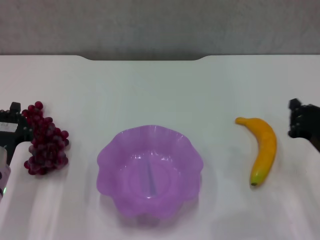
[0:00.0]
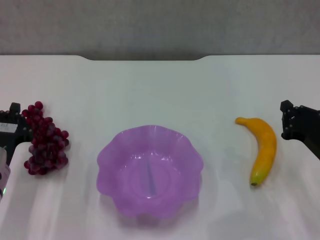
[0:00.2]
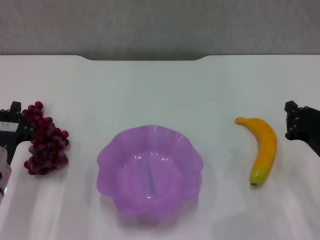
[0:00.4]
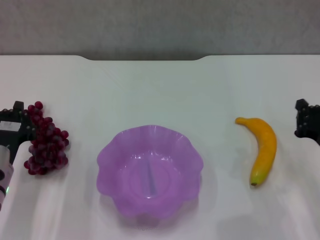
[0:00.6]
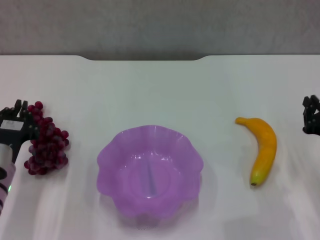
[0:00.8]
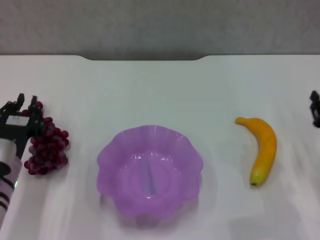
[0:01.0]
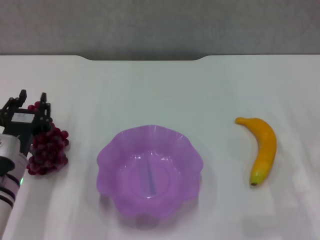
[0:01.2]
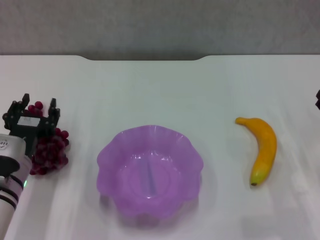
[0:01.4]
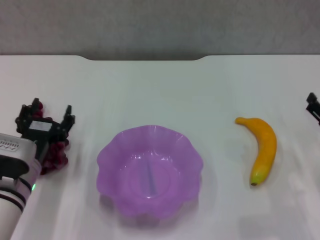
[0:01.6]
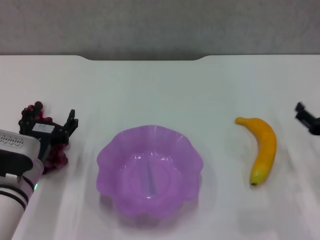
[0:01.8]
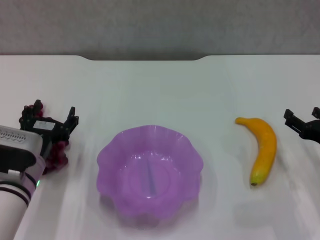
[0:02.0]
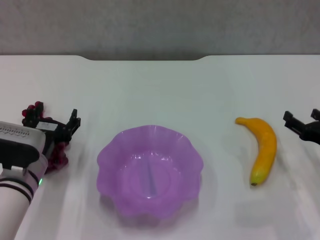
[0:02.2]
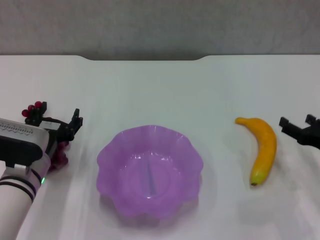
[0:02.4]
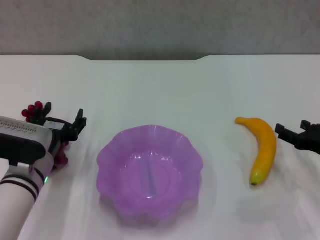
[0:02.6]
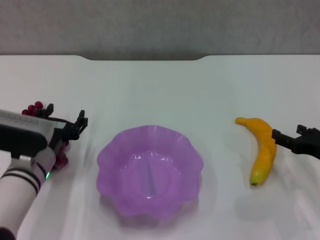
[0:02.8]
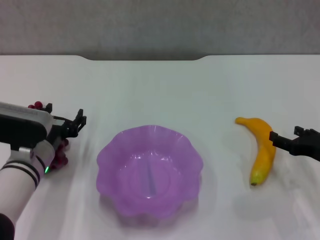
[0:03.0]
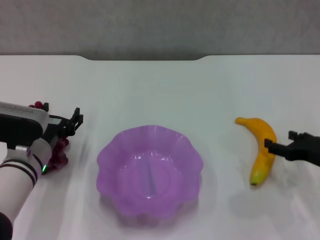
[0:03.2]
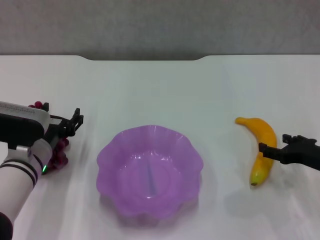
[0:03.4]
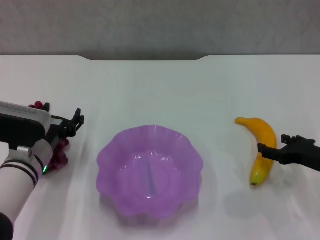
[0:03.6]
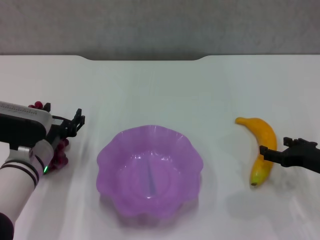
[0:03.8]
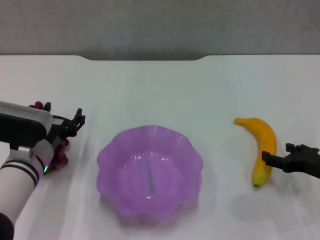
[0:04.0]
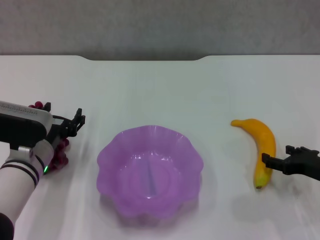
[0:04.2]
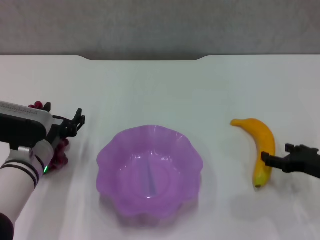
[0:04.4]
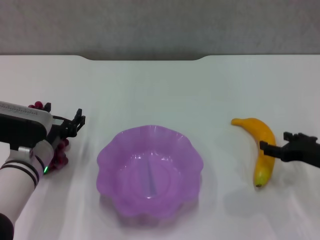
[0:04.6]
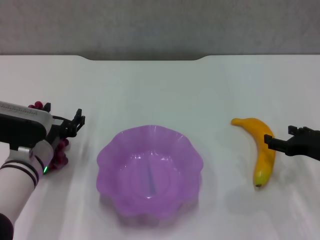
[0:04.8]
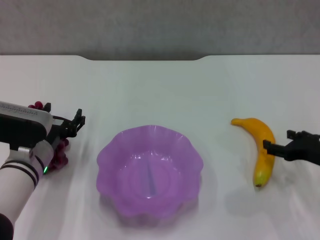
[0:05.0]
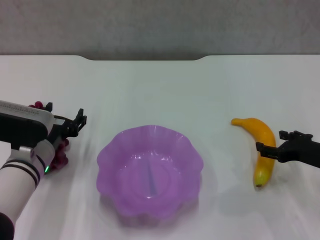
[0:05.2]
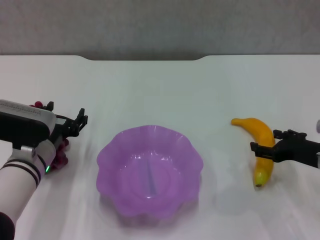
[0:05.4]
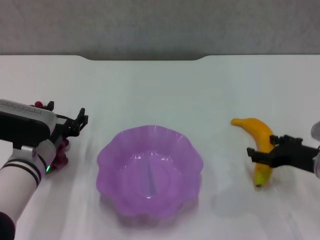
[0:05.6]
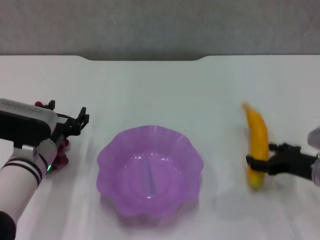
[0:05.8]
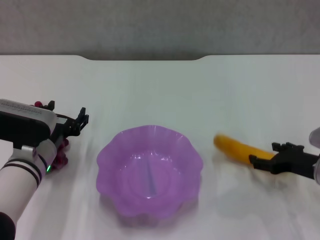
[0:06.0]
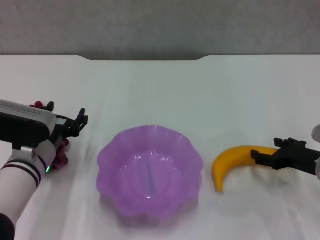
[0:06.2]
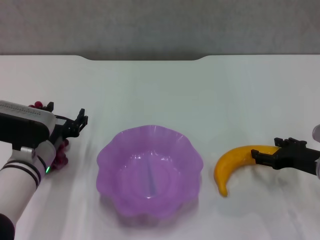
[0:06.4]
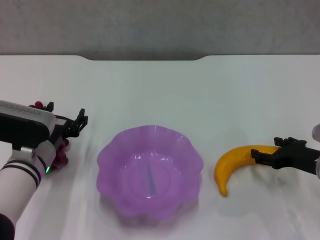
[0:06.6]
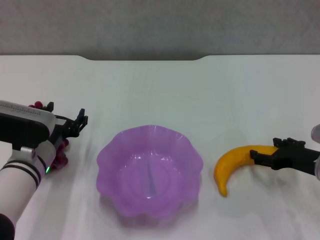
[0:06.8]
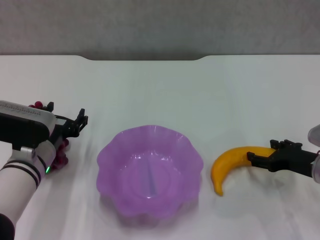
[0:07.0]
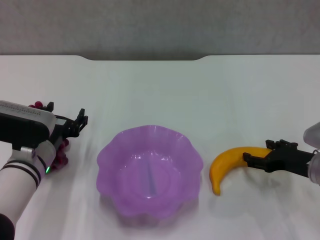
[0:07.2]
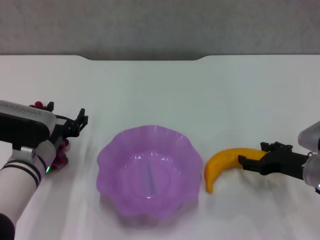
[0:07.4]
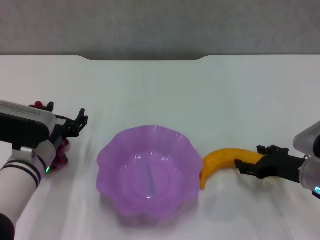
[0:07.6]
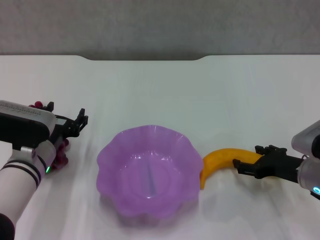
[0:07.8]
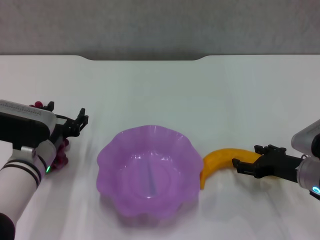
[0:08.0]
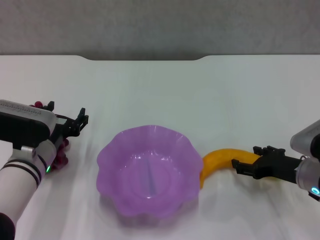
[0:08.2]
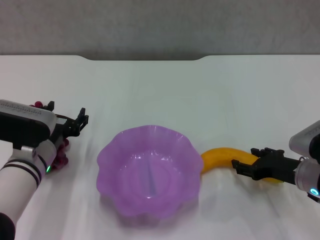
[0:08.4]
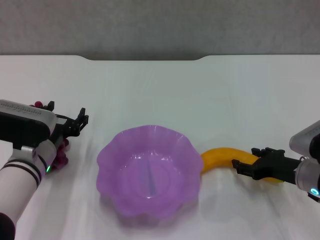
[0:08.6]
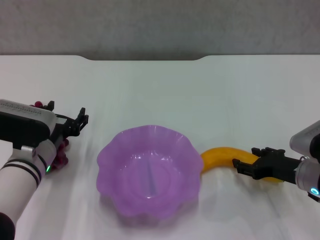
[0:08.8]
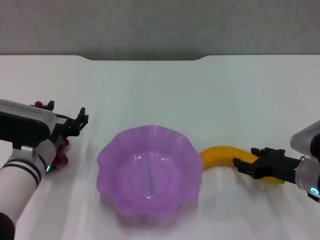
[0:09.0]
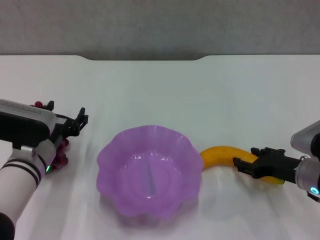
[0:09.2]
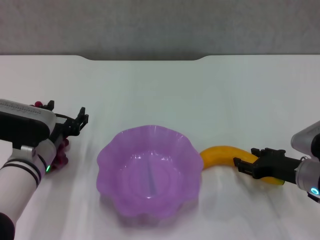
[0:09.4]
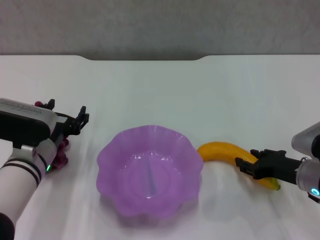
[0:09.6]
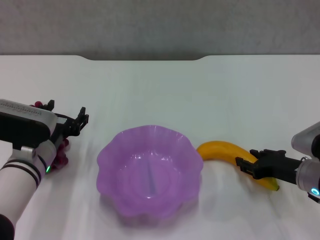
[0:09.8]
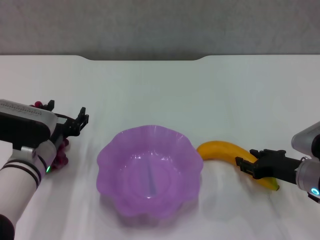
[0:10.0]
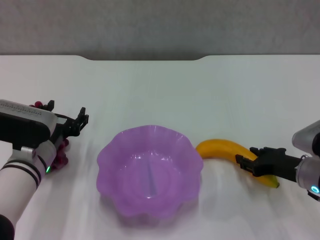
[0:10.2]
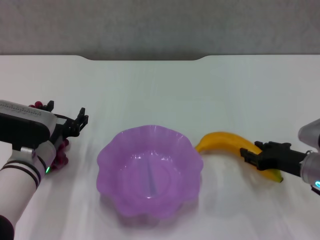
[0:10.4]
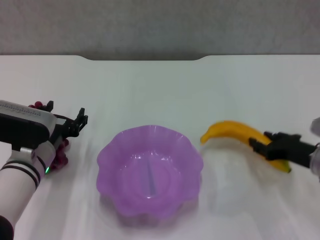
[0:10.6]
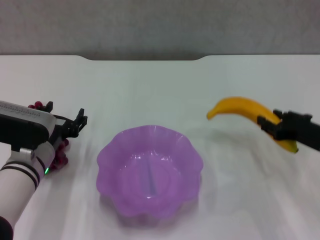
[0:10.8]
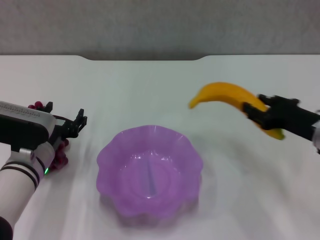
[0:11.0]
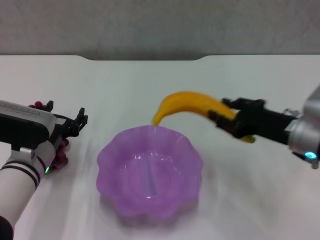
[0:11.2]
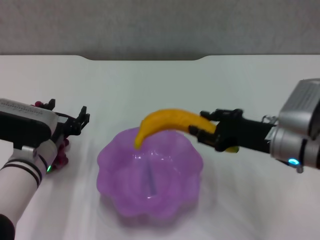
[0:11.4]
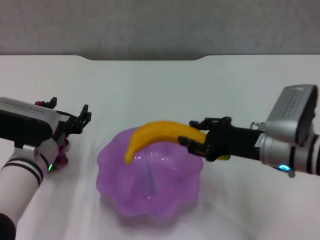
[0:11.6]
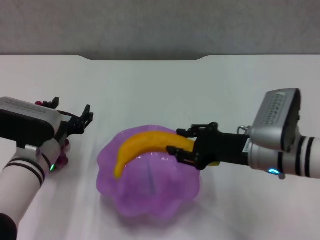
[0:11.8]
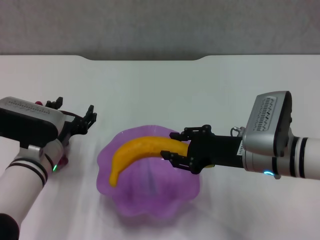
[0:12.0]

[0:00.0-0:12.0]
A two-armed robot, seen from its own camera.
Step, 0:00.0 to 0:09.8: Grasp the banana with right gripper.
0:00.0 to 0:01.6: The left gripper opens. Meanwhile the right gripper opens its fingers.
0:03.0 to 0:07.6: There are only small adjustments of the grippers.
0:07.6 to 0:09.0: The two grippers keep their place.
0:09.0 to 0:10.4: The two grippers keep their place.
0:10.4 to 0:12.0: The right gripper travels to the left and upward by about 10 cm.

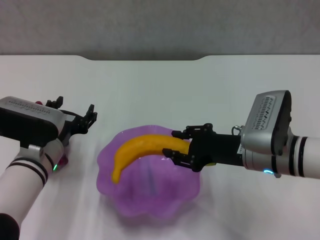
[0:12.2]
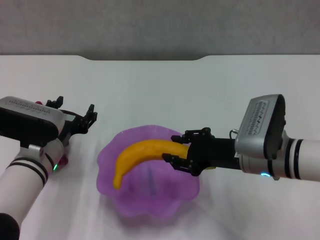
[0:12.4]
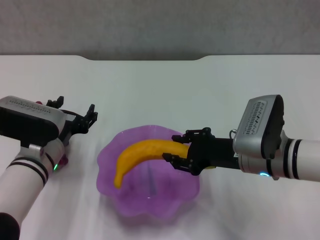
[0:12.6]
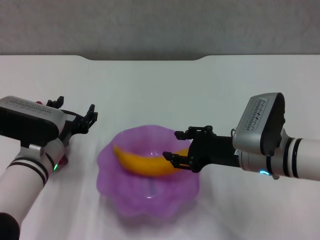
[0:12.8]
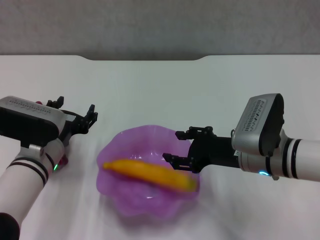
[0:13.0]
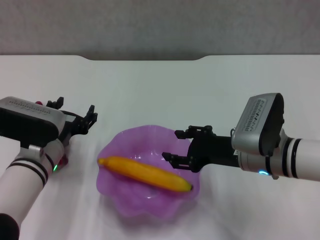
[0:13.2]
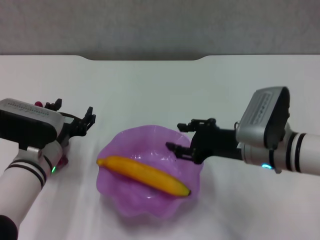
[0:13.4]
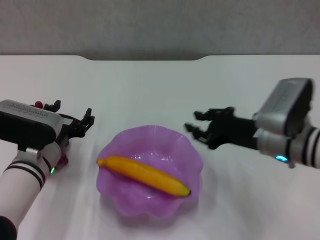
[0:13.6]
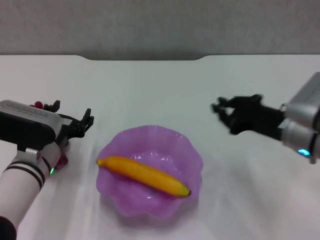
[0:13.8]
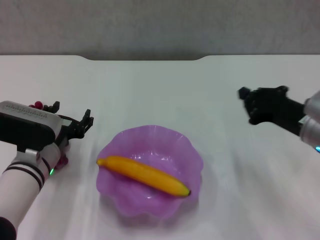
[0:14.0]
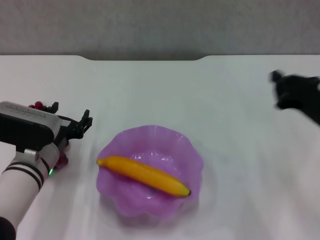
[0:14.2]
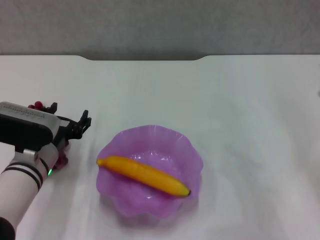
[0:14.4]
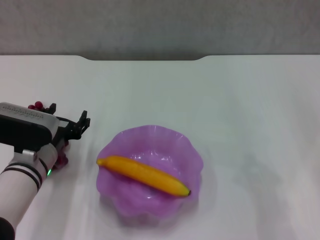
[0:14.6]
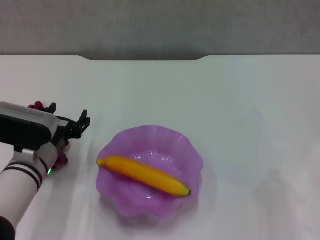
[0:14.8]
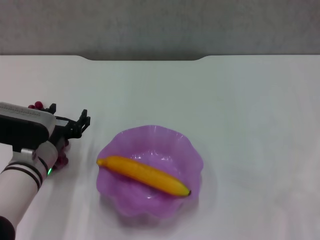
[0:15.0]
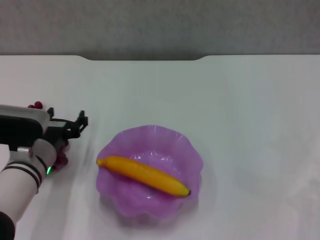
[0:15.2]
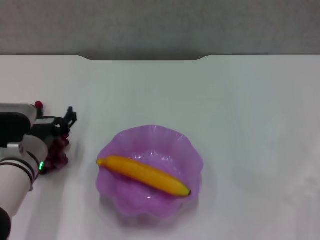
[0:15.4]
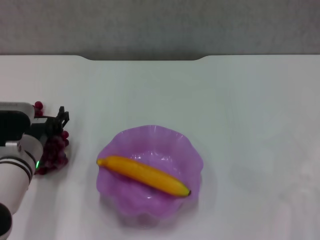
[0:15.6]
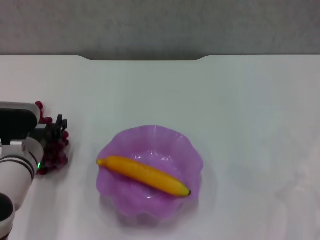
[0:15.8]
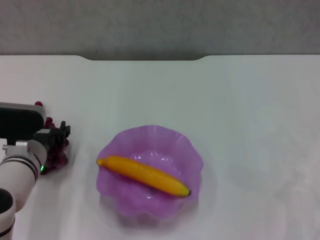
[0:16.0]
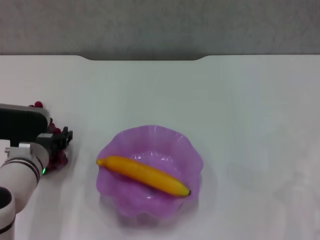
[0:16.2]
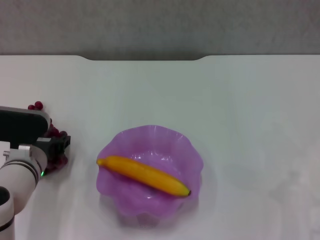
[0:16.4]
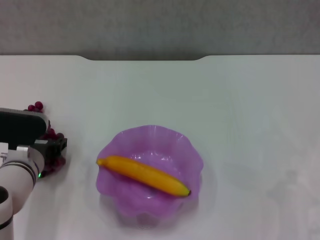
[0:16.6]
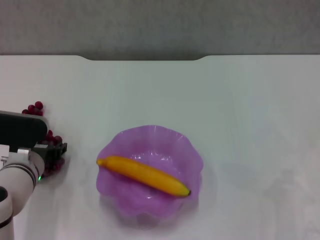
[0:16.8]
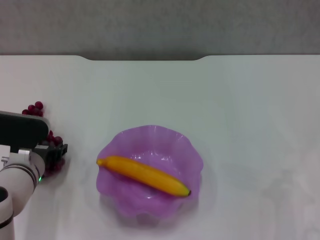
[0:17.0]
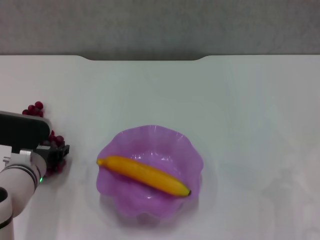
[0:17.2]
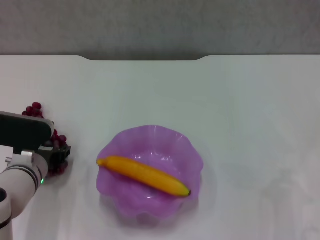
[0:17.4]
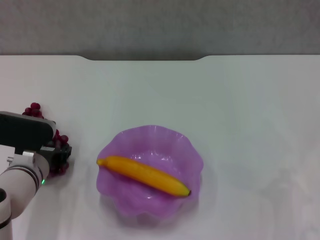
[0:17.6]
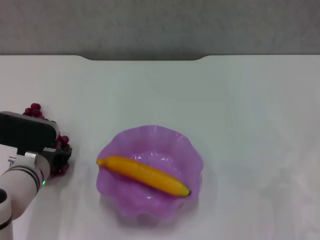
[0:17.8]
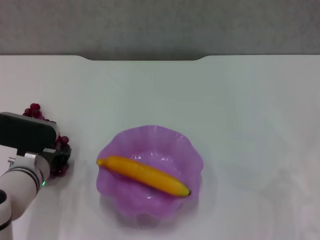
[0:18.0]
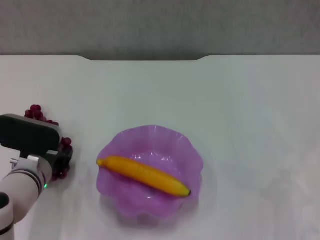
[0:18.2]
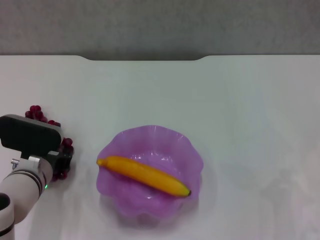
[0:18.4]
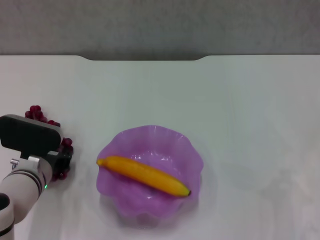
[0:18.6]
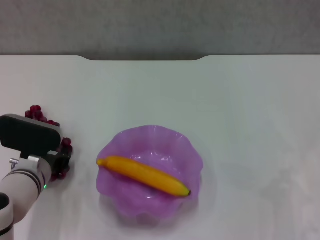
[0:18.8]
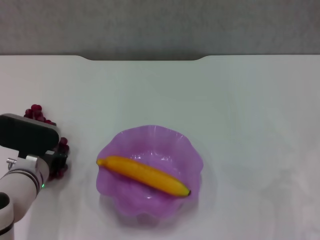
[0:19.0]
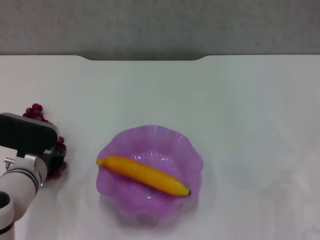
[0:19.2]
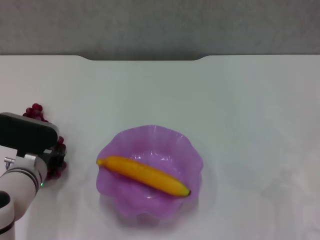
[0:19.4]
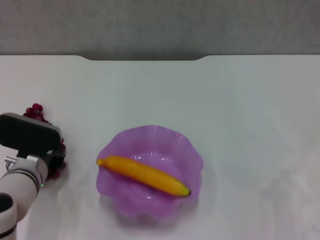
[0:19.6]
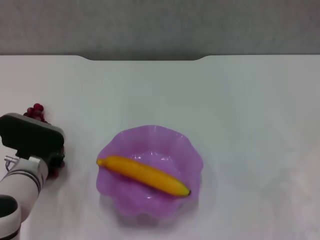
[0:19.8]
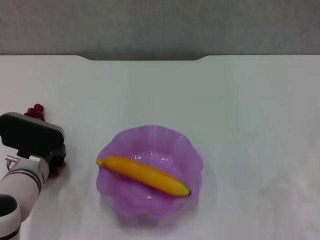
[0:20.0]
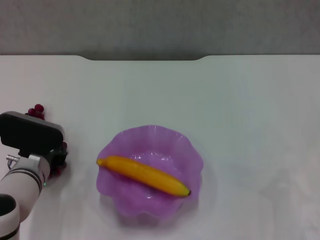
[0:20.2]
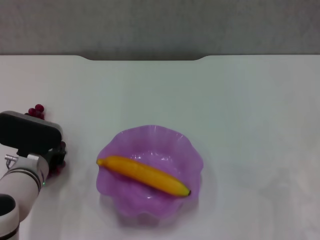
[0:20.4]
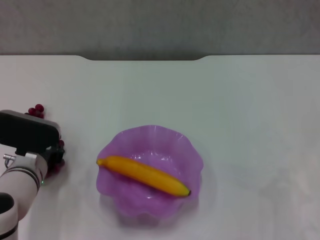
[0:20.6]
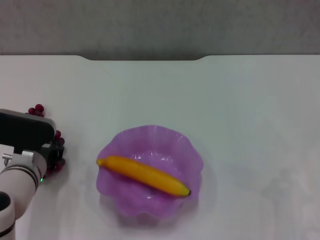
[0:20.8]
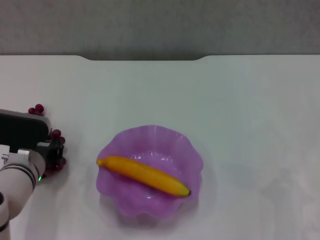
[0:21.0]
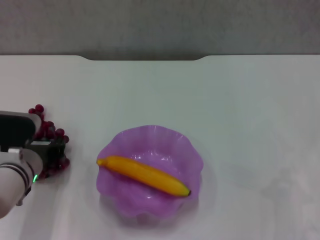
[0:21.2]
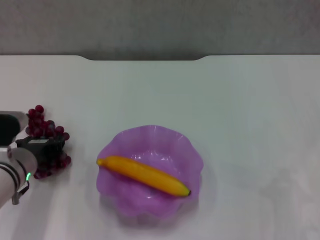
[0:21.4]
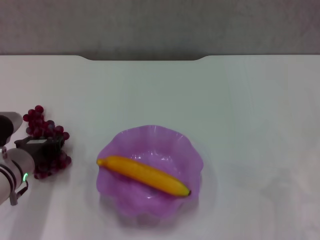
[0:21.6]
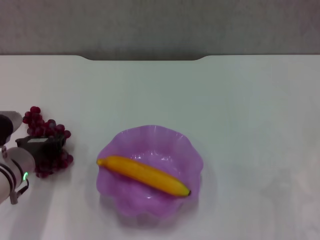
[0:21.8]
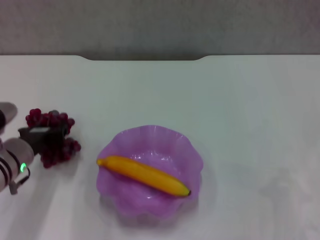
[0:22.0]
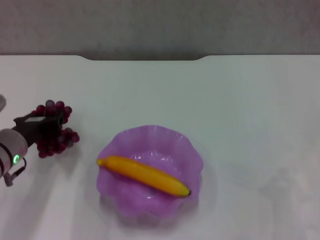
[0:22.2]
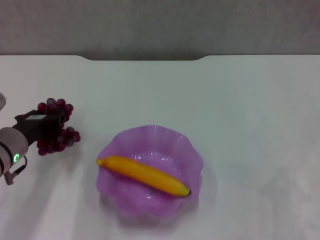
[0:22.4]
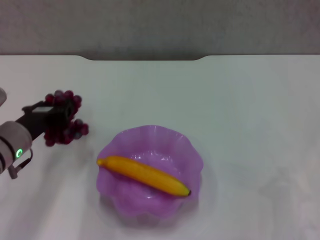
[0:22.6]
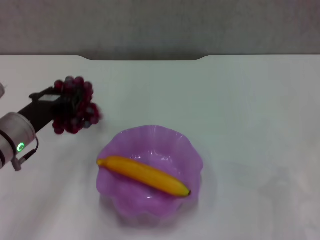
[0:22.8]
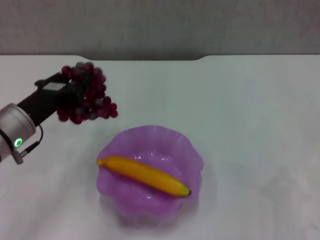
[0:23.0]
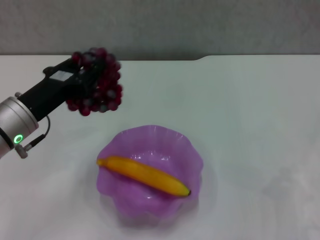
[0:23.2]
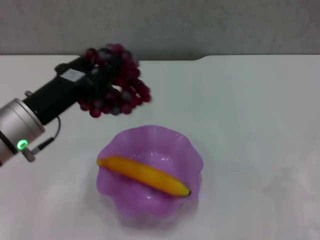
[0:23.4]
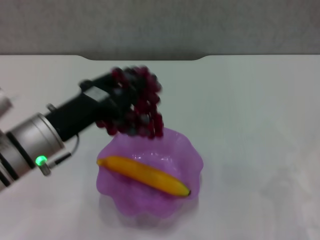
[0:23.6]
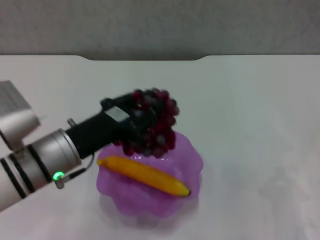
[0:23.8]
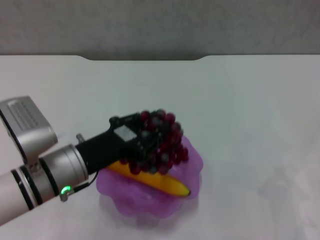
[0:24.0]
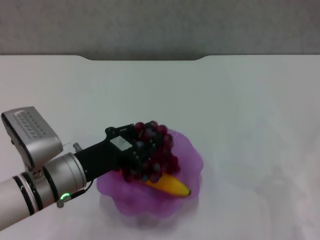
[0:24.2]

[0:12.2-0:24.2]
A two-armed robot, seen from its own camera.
Step, 0:13.2 to 0:21.2: Grasp the grape with left gripper.
0:12.2 to 0:13.8: The right gripper shifts approximately 5 cm to the right.
0:13.8 to 0:15.2: The right gripper is displaced backward and to the right by about 15 cm, and closes.
0:15.2 to 0:16.6: The grippers make only small movements.
0:16.6 to 0:21.2: There are only small adjustments of the grippers.
0:22.6 to 0:24.2: The left gripper heads to the right, covering some 5 cm.
